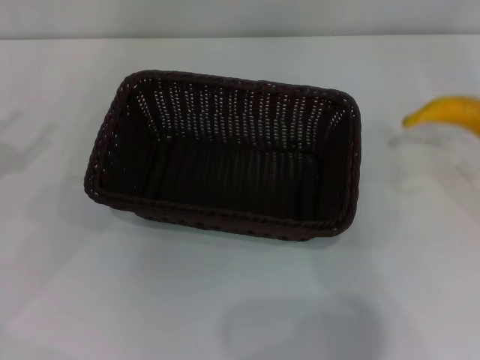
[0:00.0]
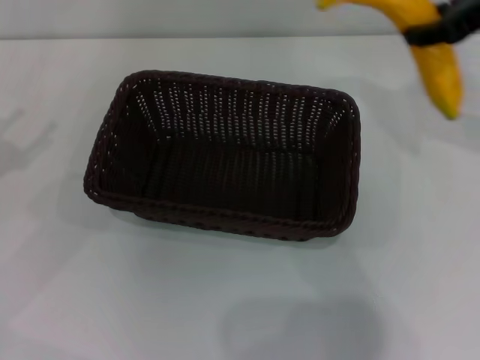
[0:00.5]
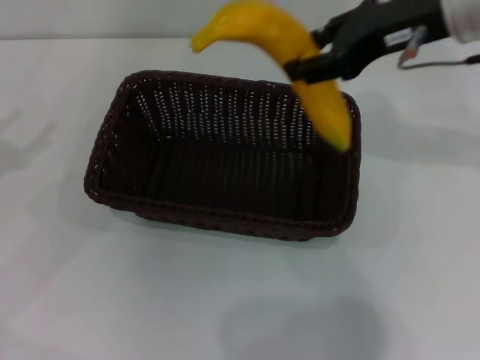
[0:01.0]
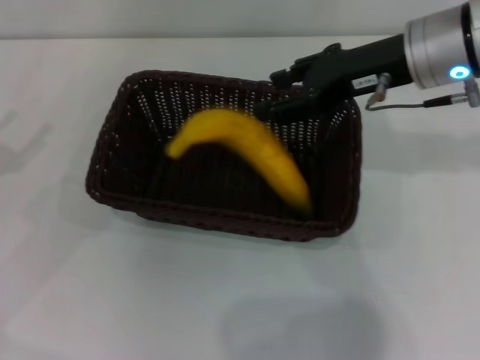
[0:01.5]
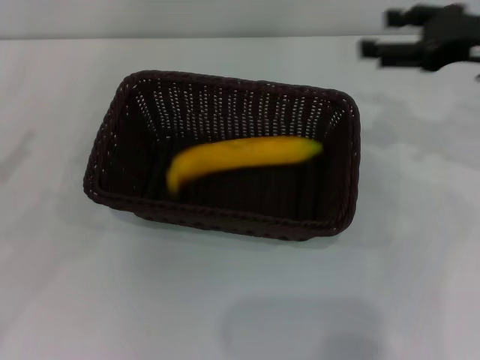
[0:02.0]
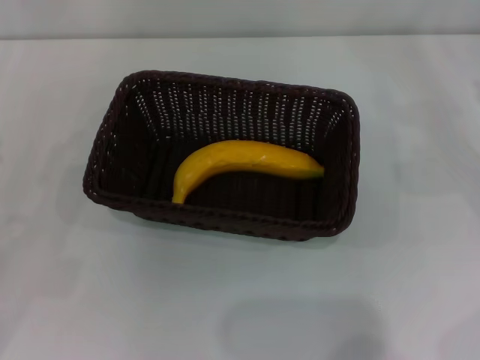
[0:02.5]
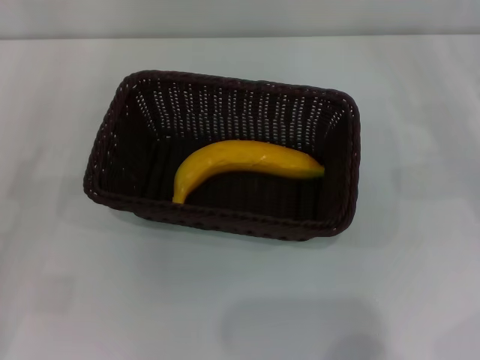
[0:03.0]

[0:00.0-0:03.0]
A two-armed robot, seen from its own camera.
Step, 0:00.0 to 0:01.5: Place the banana into the dark basket with the right gripper.
0:00.0 to 0:01.5: The right gripper is displaced to the left by approximately 15 cm.
0:01.5 to 0:03.0: The right gripper heads to the right and downward, covering some 25 cm, and opens its fingers. Meanwhile the left gripper moves downward and backward, approximately 10 cm.
